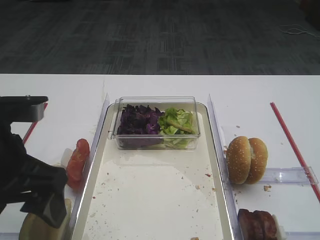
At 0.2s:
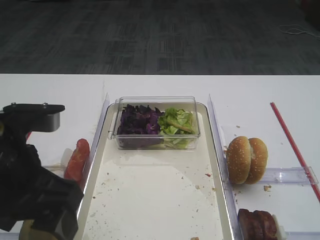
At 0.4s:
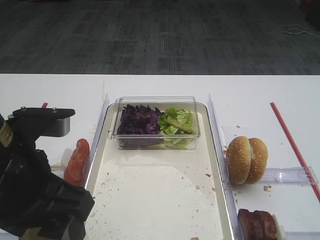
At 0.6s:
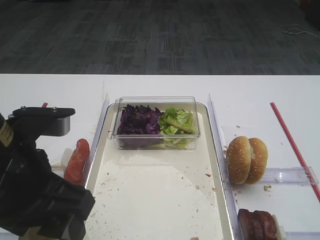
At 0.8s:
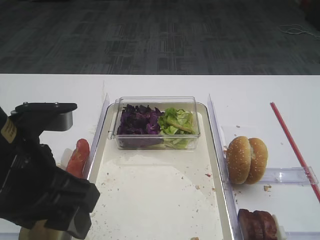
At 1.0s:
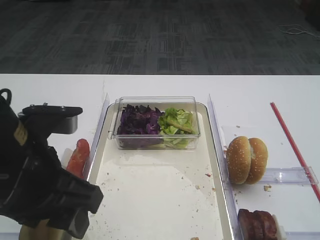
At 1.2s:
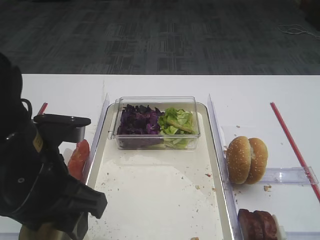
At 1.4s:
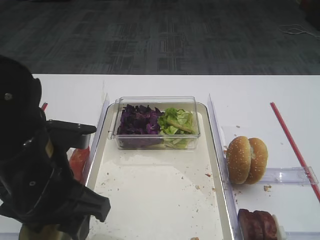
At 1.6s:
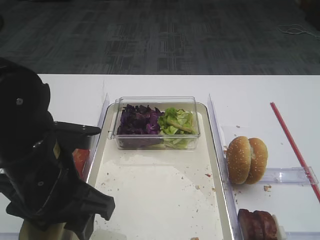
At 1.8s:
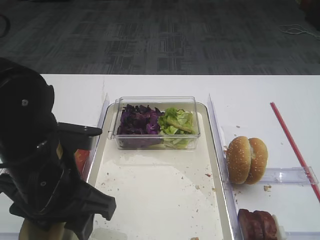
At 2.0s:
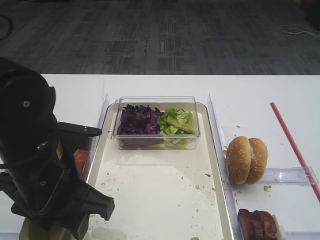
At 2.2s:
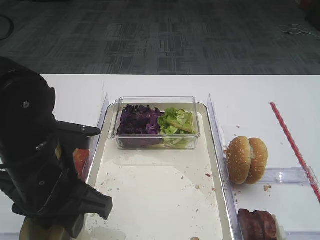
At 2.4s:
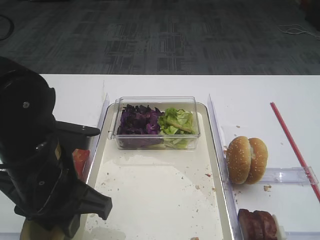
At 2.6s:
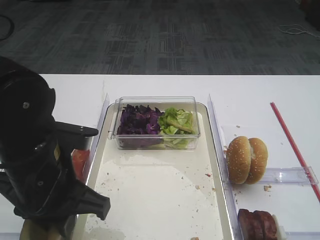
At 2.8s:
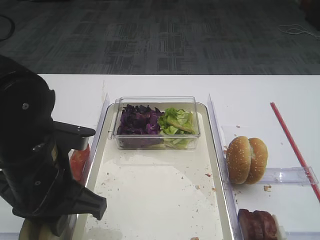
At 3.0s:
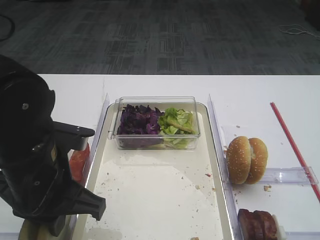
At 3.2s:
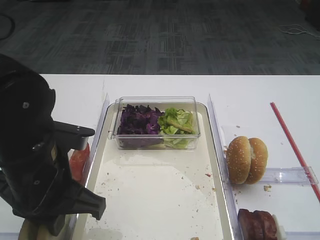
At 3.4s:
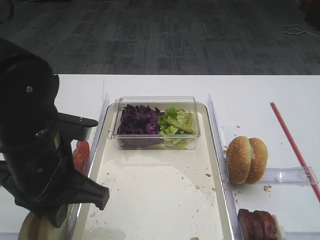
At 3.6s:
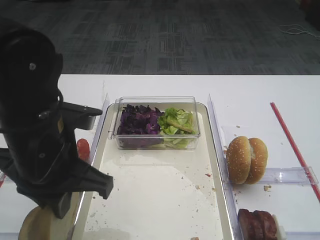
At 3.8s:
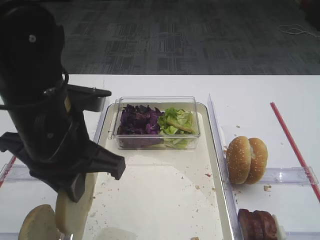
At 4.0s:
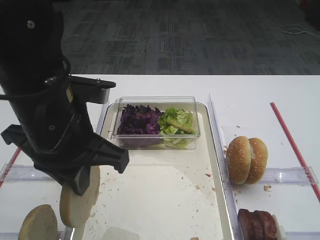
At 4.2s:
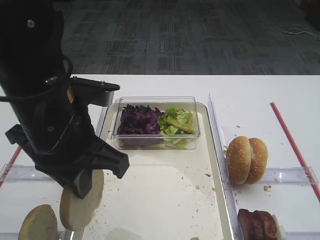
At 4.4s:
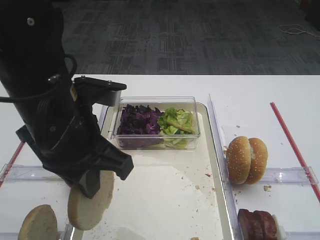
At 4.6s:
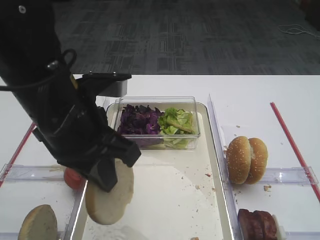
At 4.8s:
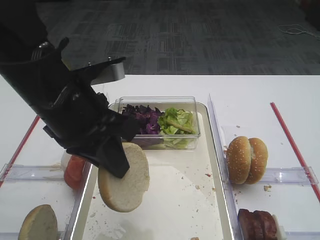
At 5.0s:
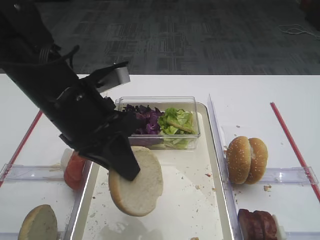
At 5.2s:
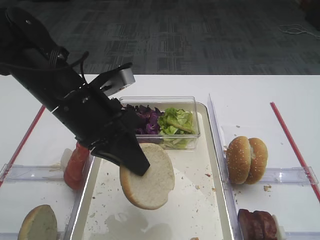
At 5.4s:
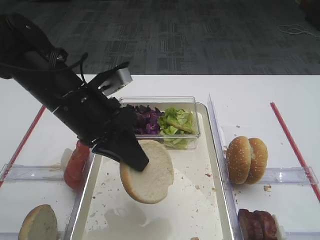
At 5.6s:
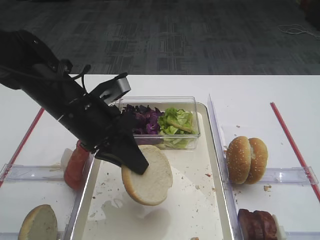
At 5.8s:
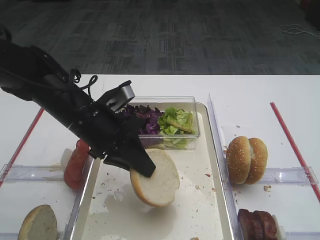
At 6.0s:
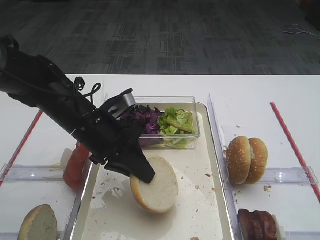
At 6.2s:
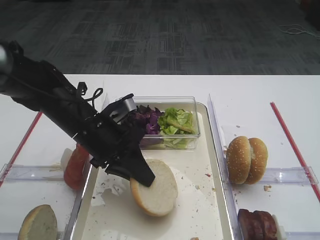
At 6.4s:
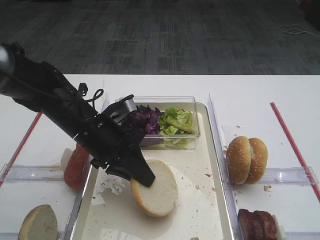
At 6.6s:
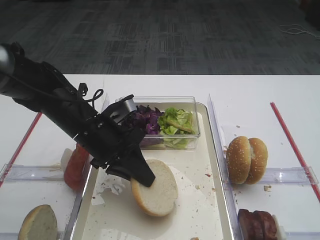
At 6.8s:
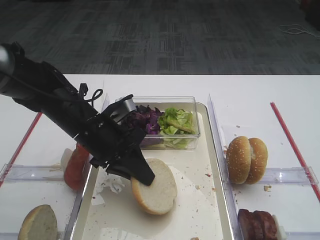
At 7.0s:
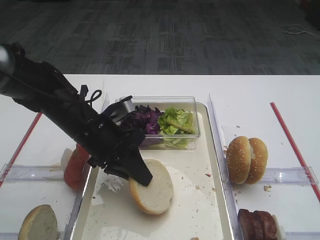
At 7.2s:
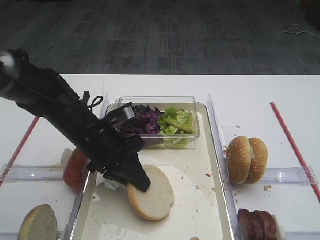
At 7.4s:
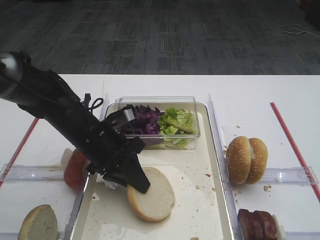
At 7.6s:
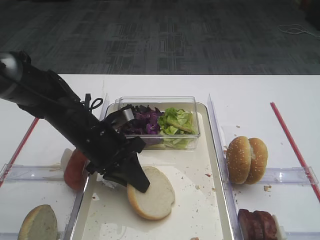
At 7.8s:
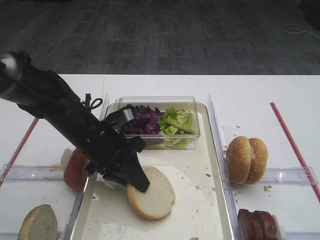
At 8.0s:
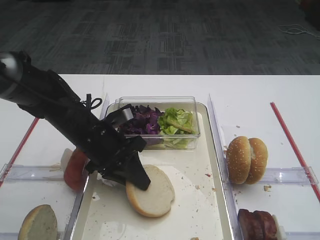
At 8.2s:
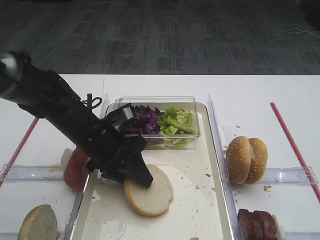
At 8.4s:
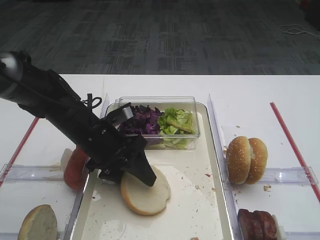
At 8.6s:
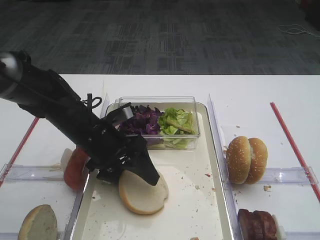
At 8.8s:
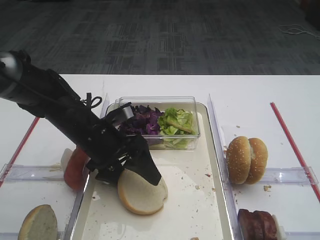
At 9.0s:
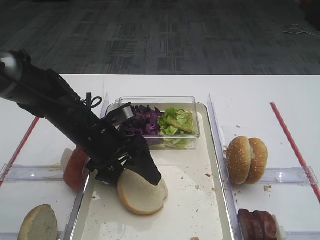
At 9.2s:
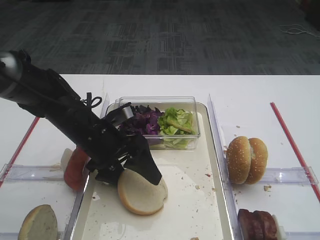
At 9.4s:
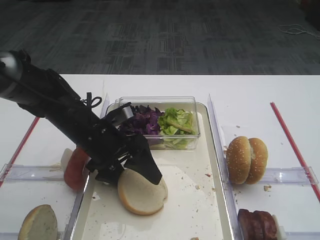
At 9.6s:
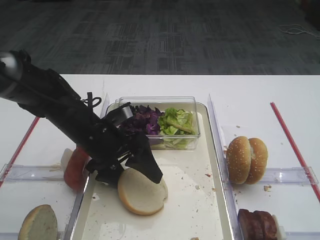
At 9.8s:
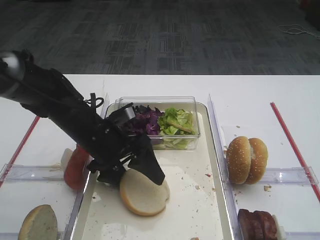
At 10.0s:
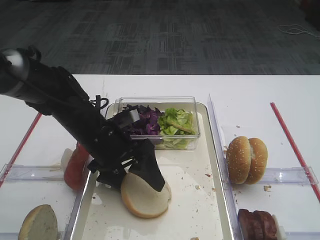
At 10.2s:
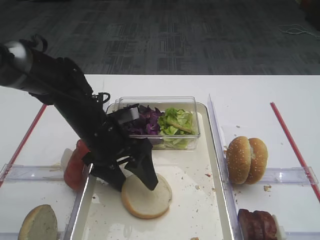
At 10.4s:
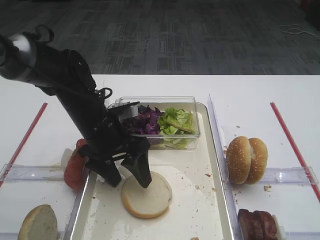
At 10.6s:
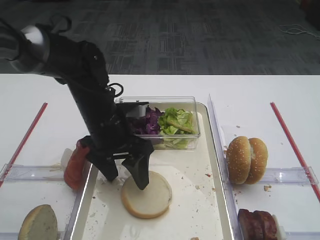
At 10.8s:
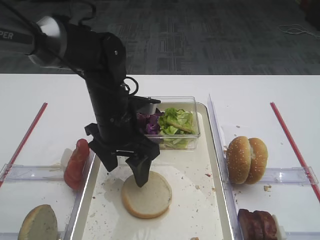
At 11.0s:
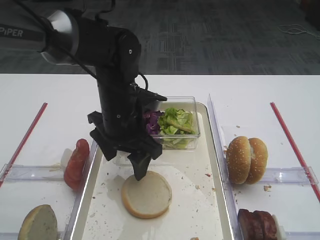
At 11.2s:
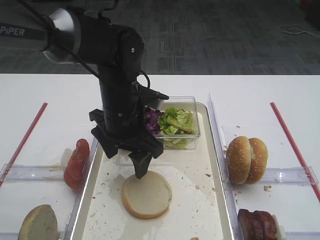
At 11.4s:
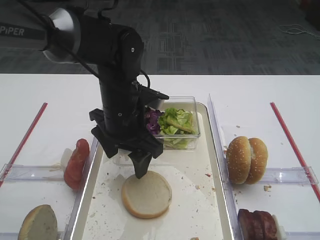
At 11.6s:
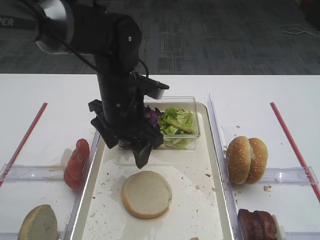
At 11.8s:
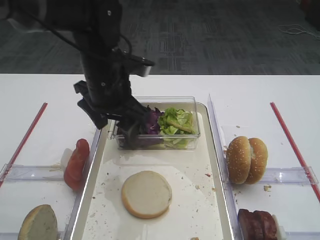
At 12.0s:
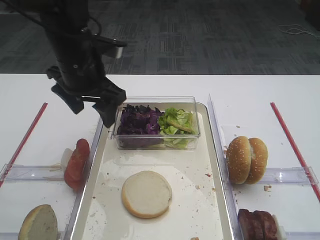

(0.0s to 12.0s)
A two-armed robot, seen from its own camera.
Step, 0.0s - 4.0s: Pick up the bread slice with the left gripper.
Step, 4.2s - 11.4s: Place the bread slice on the tray with the left gripper.
0.0s - 1.6s: The left gripper goes roughly 5 cm to the right.
1.6s - 3.0s: The left gripper closes up.
3.0s - 4.4s: The left gripper shifts about 5 cm upward.
4.4s - 6.0s: The left gripper goes roughly 15 cm downward and forward.
6.0s - 7.6s: The grippers move only a little.
7.6s - 9.0s: The left gripper opens its fingers.
9.0s - 10.4s: The grippers stay close to where they were, moving slightly.
10.4s - 12.0s: The left gripper goes approximately 10 cm upward.

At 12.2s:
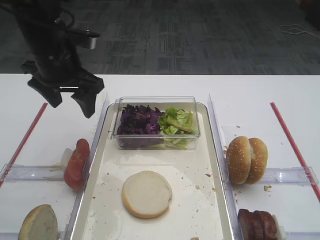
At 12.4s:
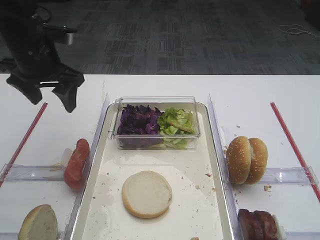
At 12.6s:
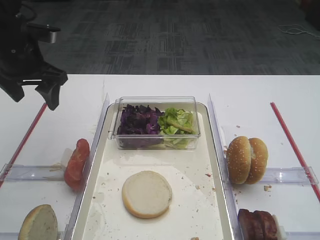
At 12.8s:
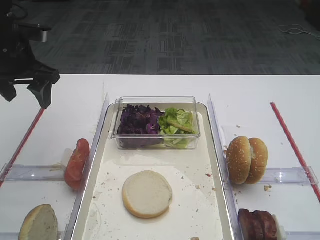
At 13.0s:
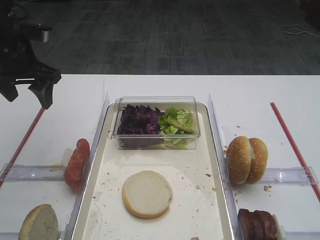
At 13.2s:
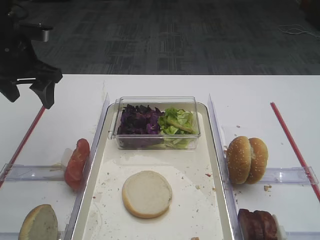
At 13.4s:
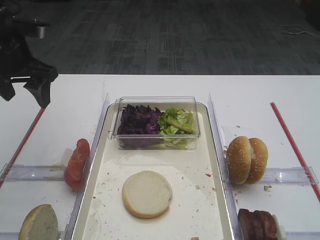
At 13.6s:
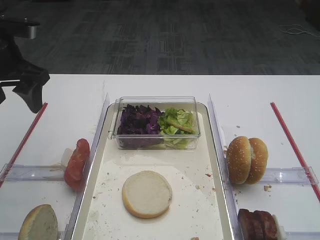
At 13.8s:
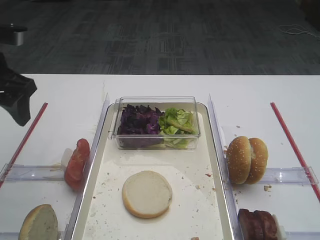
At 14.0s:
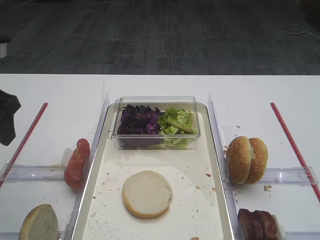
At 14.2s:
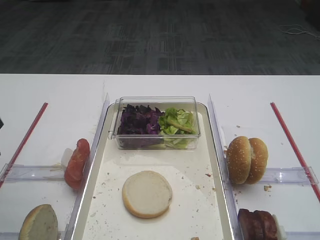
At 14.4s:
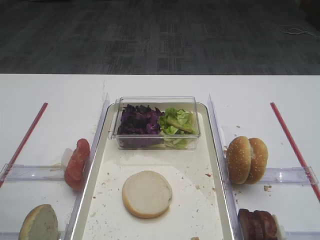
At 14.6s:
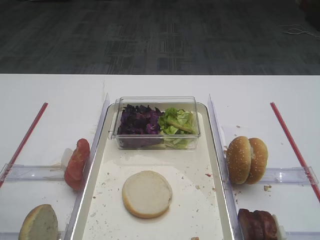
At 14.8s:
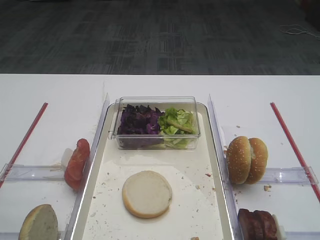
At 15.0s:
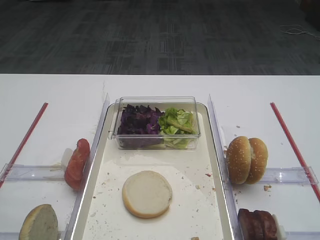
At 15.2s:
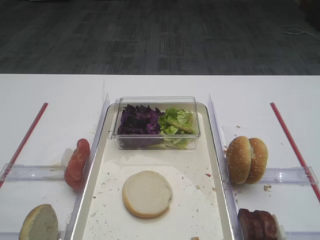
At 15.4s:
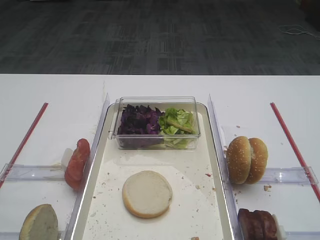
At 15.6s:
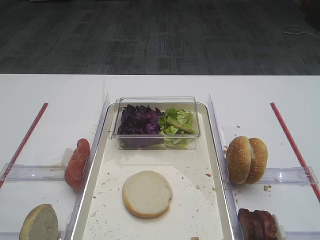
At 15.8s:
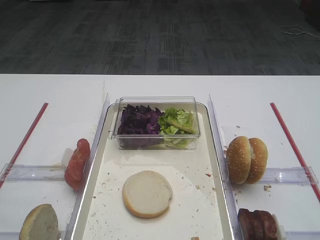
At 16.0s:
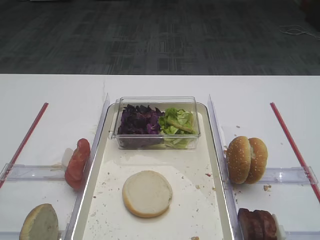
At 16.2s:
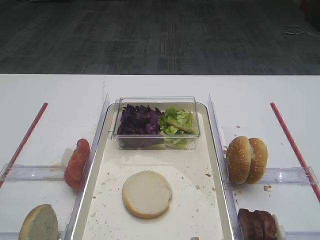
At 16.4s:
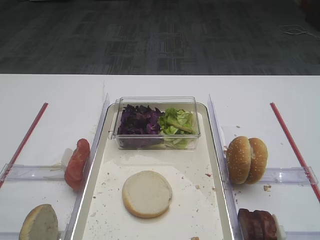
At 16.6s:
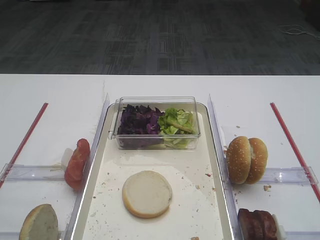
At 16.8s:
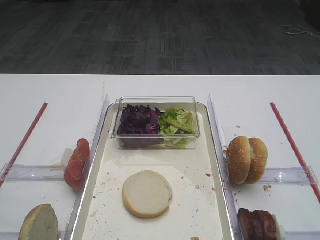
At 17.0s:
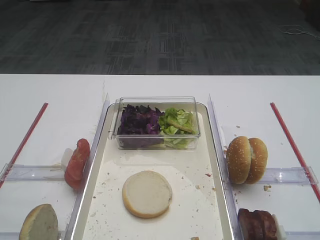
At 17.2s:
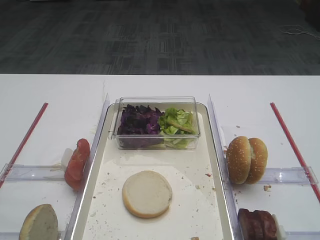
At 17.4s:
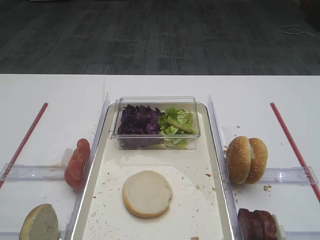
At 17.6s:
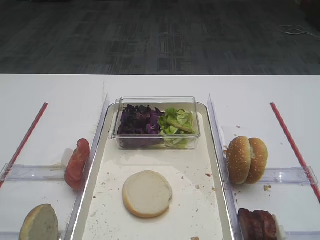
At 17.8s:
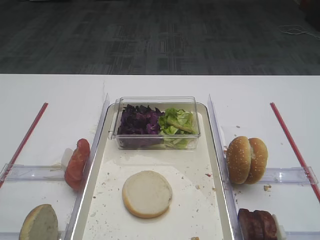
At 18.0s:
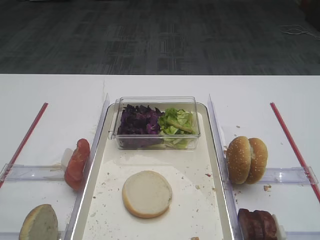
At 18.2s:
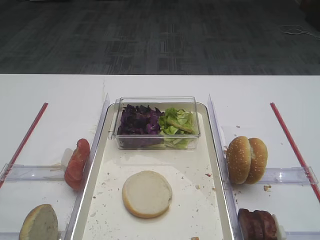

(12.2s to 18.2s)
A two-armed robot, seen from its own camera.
12.2s - 13.8s: The left gripper is displaced to the left and backward by about 10 cm.
13.8s - 15.2s: The left gripper moves backward, roughly 25 cm.
16.6s - 18.2s: Neither gripper changes place.

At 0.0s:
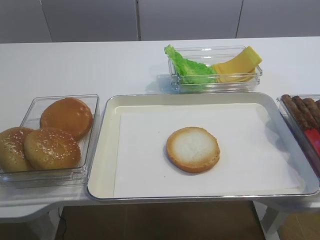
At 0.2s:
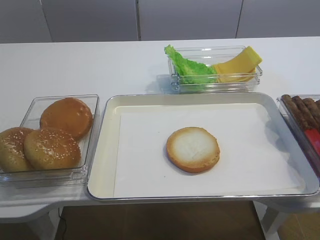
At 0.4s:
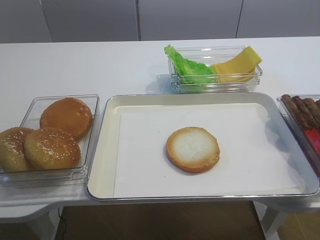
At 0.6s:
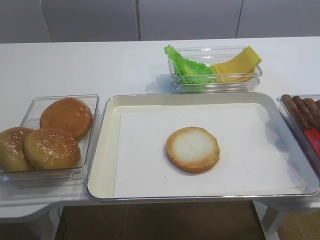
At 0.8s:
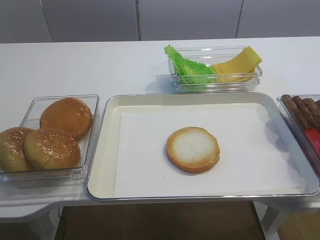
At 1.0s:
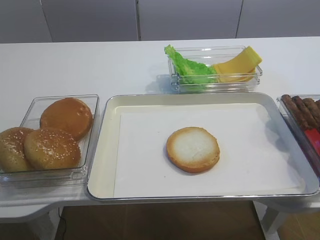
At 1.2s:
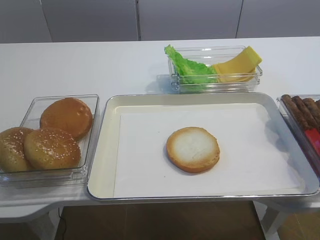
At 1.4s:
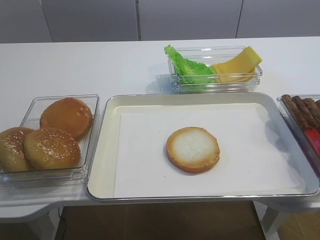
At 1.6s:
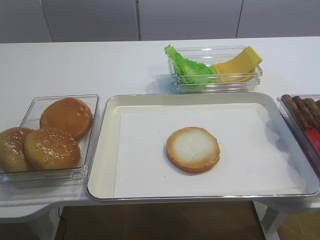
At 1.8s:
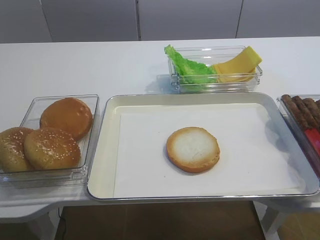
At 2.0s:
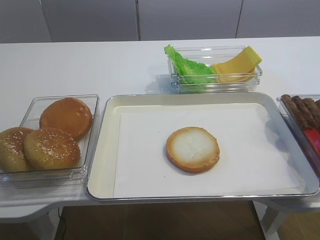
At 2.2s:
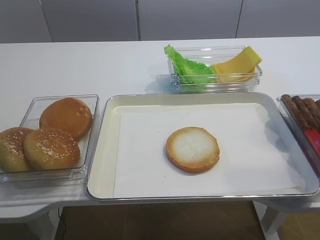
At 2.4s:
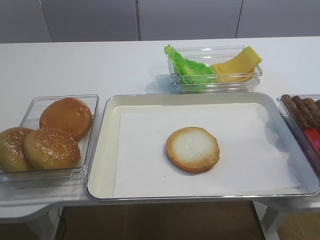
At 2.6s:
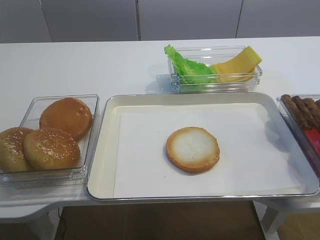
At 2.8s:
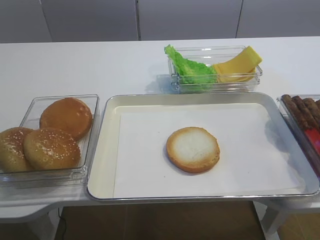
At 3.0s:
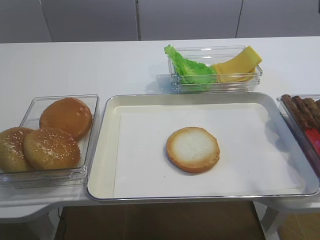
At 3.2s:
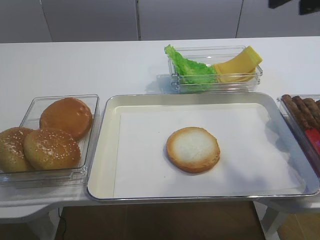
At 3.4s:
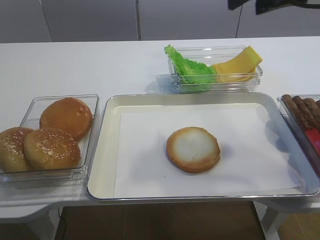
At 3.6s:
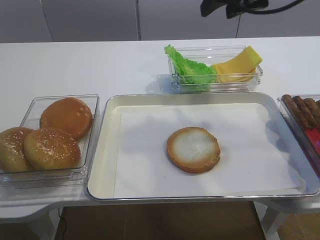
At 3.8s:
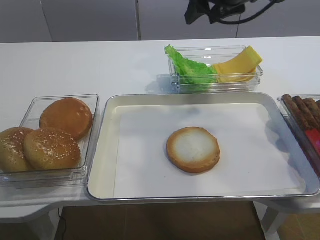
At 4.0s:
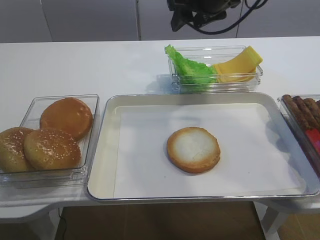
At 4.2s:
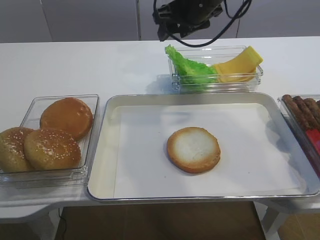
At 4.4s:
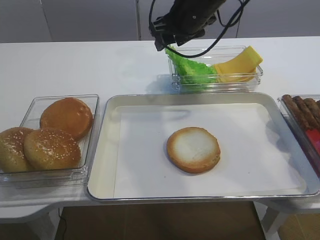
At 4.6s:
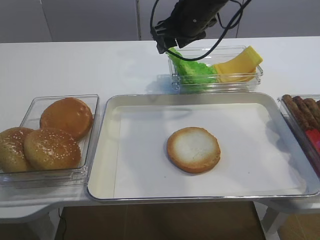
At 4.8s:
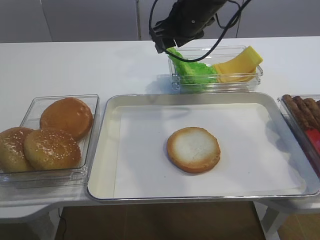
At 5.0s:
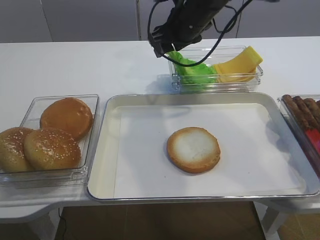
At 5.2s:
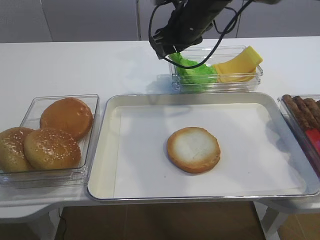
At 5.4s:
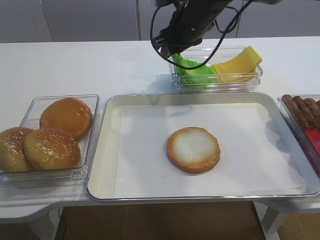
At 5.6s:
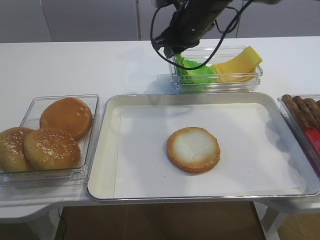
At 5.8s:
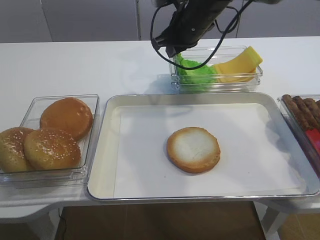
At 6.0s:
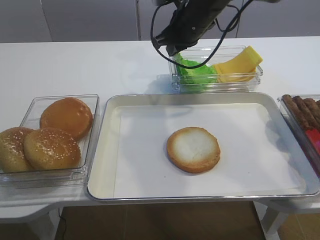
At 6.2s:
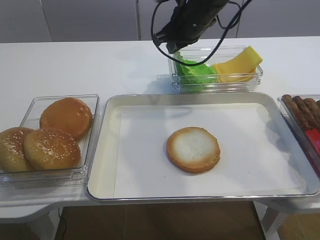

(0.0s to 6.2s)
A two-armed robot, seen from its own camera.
1.6s - 3.2s: The right gripper travels forward and upward by about 30 cm.
3.2s - 4.6s: The right gripper heads forward, to the left and downward, covering some 25 cm.
4.6s - 6.2s: The right gripper closes.
